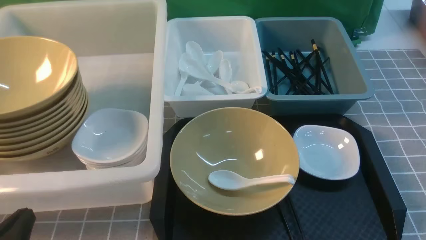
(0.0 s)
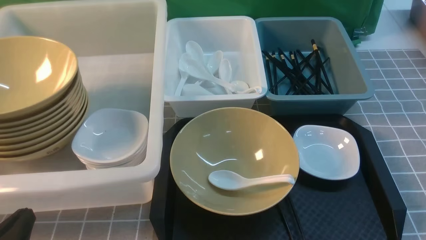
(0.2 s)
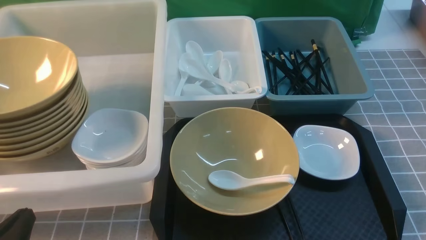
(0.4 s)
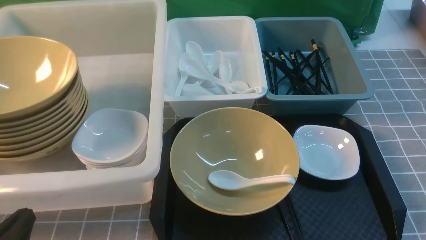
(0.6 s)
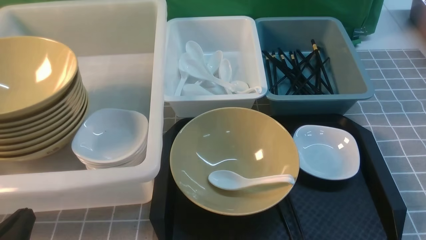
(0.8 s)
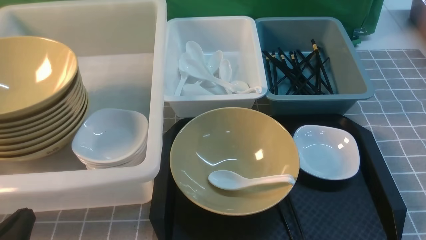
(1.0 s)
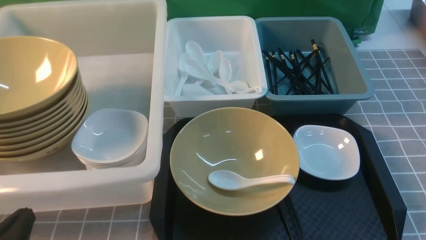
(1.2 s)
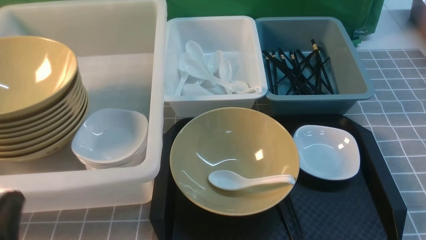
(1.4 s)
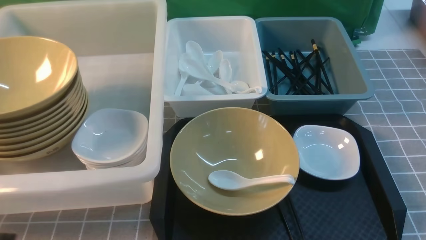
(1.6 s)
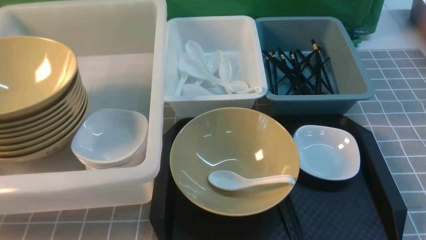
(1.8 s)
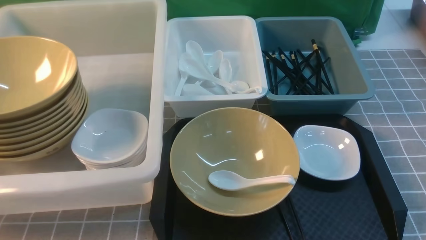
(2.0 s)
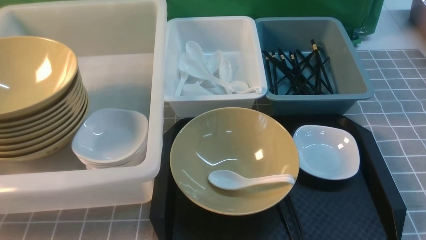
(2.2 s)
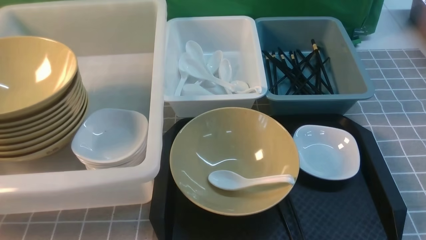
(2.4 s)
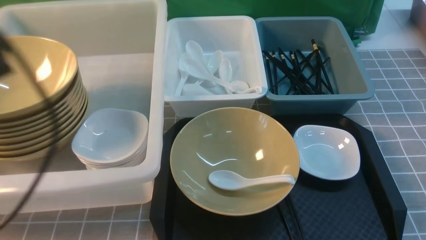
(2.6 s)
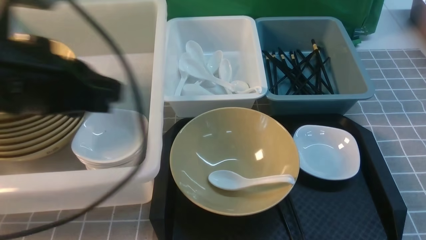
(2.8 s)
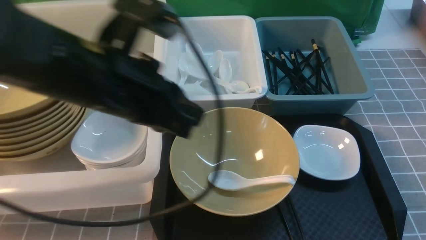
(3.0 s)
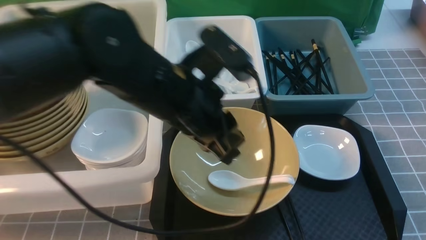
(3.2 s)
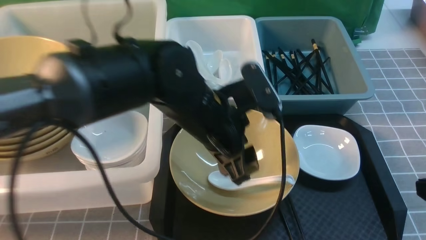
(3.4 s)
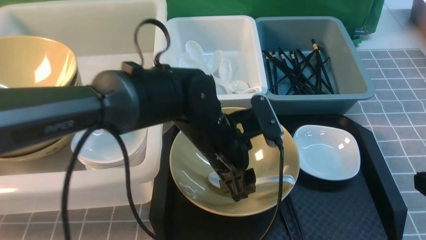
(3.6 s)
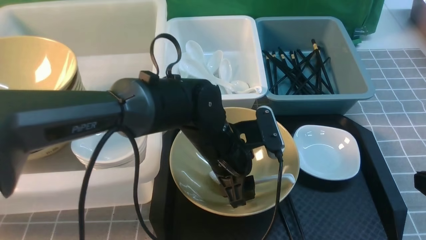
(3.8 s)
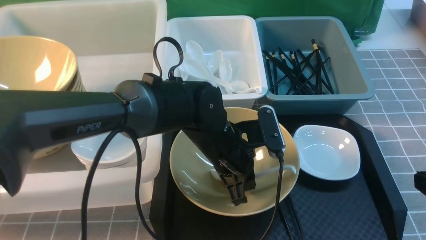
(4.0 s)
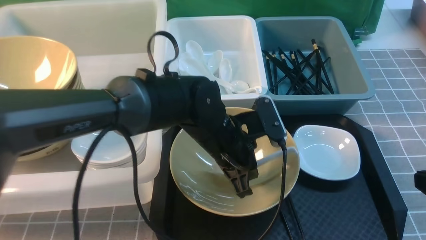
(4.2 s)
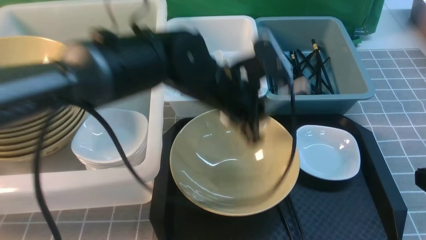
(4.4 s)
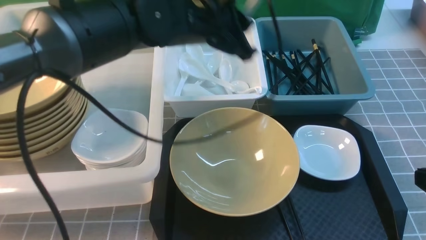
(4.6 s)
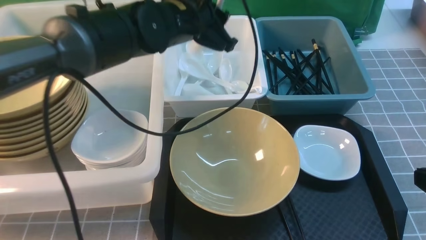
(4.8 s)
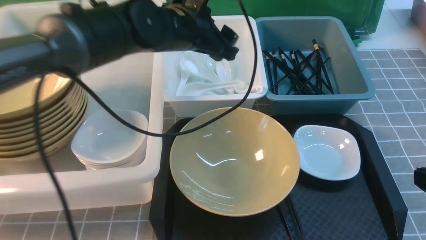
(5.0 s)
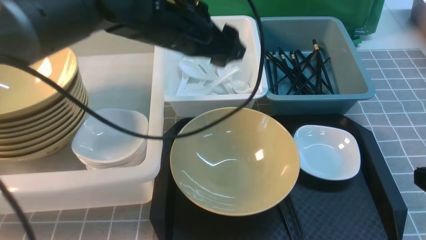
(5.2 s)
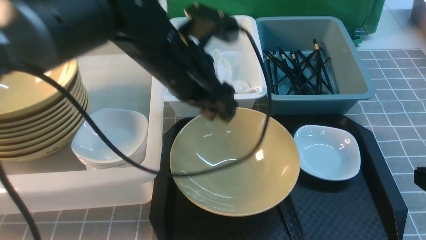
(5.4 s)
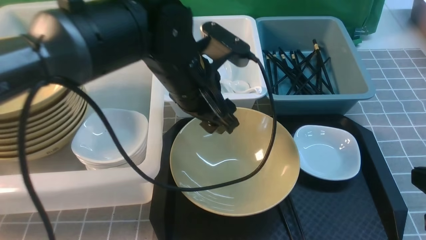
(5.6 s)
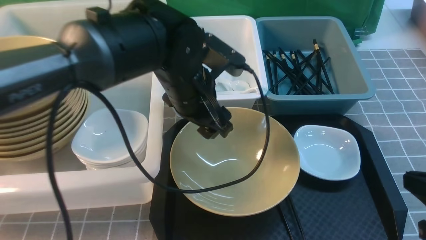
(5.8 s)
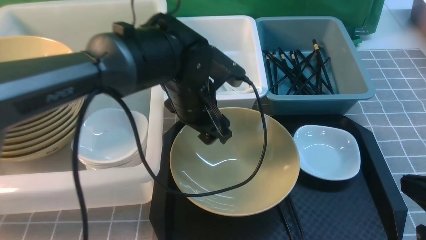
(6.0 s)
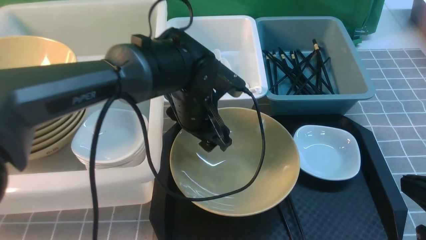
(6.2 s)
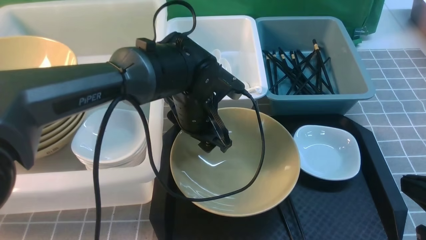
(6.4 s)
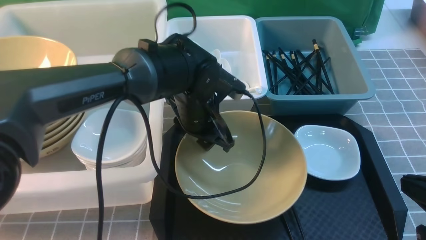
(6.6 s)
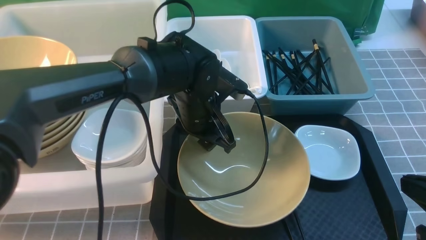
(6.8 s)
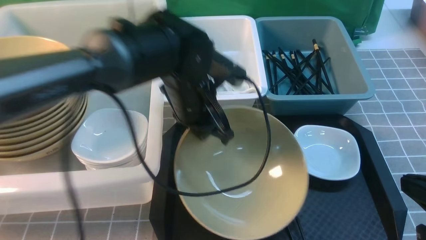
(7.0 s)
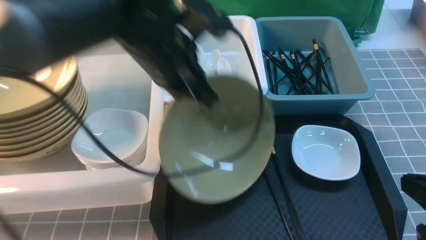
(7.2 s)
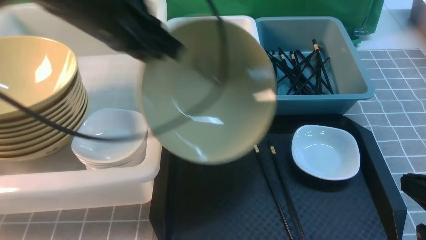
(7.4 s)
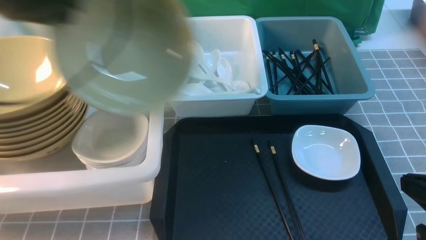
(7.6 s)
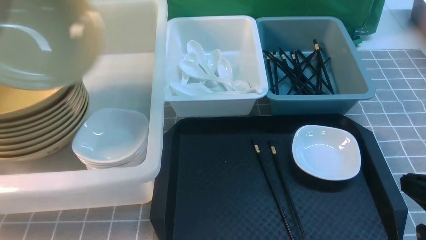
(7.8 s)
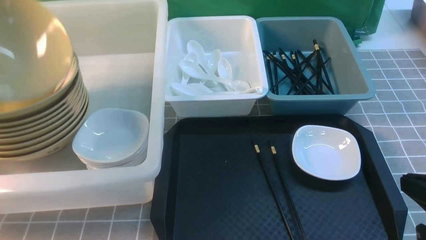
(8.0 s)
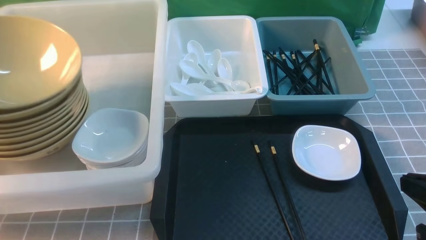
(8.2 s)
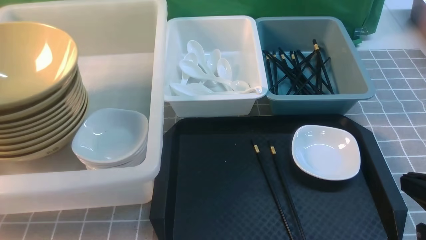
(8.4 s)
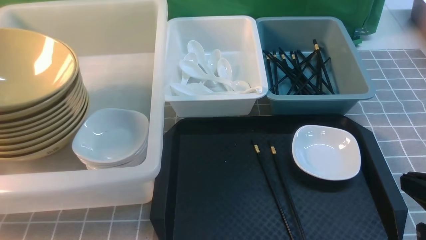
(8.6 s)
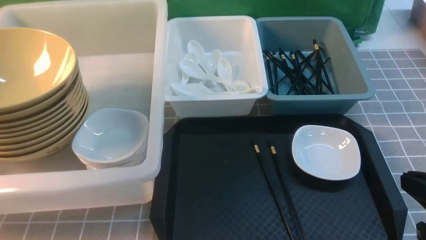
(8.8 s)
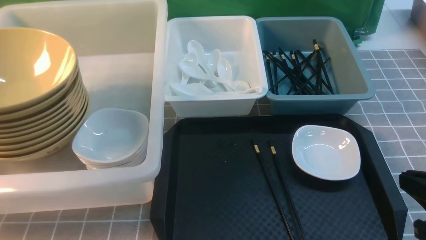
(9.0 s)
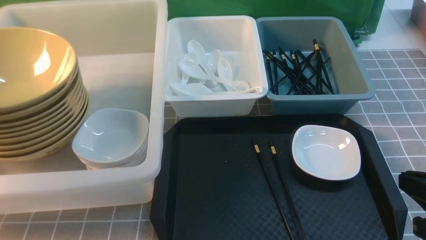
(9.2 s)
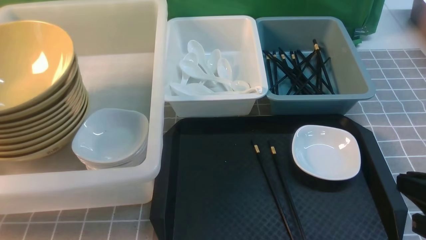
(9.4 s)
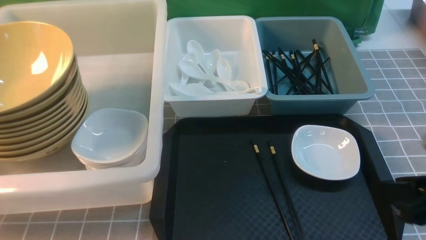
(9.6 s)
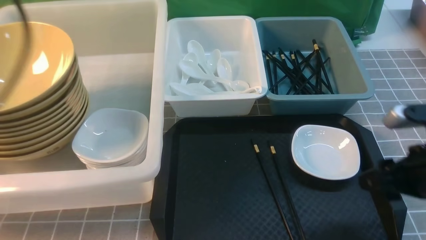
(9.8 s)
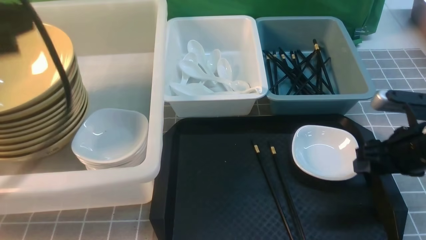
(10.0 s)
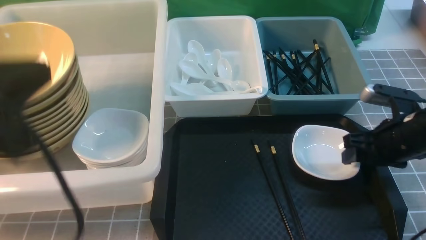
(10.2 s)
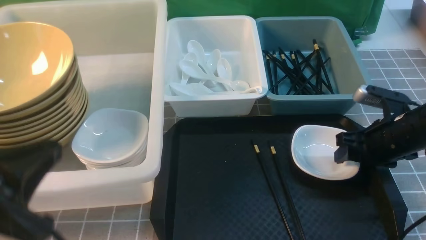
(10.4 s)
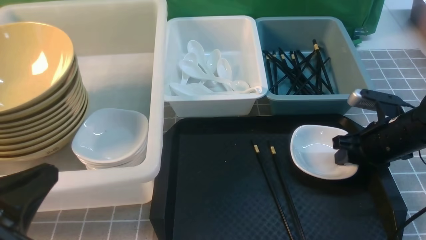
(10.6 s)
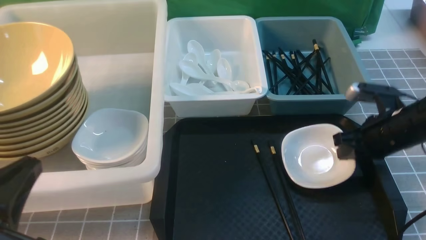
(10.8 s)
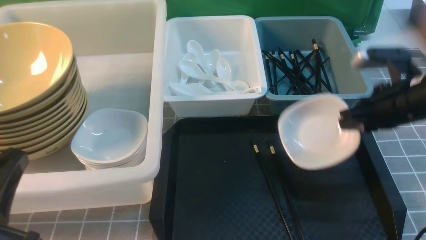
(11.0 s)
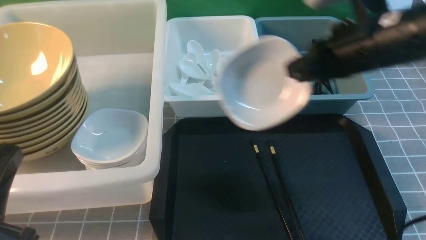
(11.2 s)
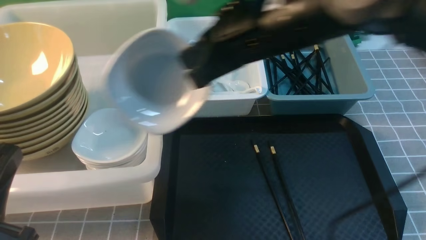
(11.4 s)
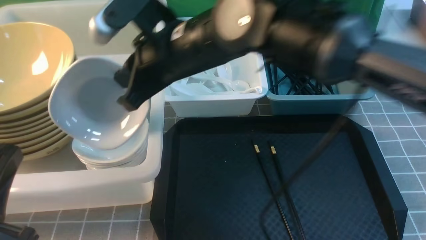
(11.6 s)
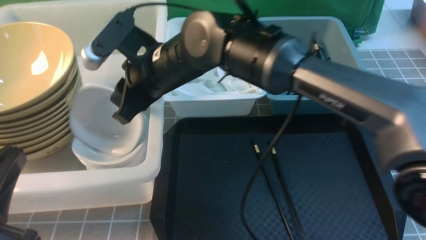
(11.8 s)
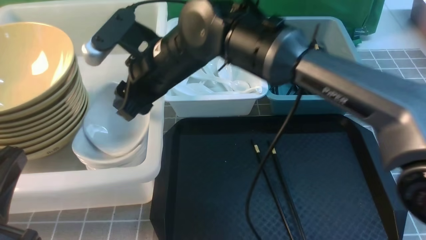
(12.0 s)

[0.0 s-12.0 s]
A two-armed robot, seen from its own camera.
Task of the whole recording: on grey table put chopsticks spoon bowls plates into blue grey white boxes.
Step, 0.0 to 4.4 s: use the left arm to grab the soup spoon in the middle.
Step, 4.6 to 5.0 s: use the left arm to put the soup spoon into the small storage box in the middle.
Step, 5.2 to 7.0 s: use the left arm to grab the yellow noodle bowl on the left.
Step, 7.2 to 9.0 s: use the left arm to put the noodle bowl into the large storage box on the left.
Step, 9.2 to 11.0 s: use the right arm to grab the plate.
0.0 to 1.6 s: The left gripper is displaced upward by some 5 cm.
1.6 to 3.0 s: The right gripper goes some 5 cm forward, reaches approximately 10 cm upward, then returns, and closes its fingers, while the left gripper shifts about 25 cm forward, to the right and upward.
3.0 to 4.4 s: The left gripper goes approximately 15 cm forward, to the right and downward, and opens, then closes again.
4.4 to 6.0 s: The left gripper opens.
6.0 to 7.6 s: The left gripper shifts some 30 cm to the left and upward, and closes its fingers.
7.6 to 9.0 s: The left gripper moves to the left, about 15 cm, and opens up.
9.0 to 10.4 s: The right gripper moves forward and downward, roughly 20 cm, and opens, while the left gripper travels backward and to the right by some 25 cm, and closes up.
10.4 to 12.0 s: The right gripper heads to the left and upward, covering some 35 cm, and closes, then opens again. The left gripper moves roughly 5 cm.

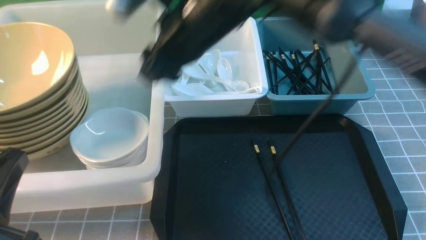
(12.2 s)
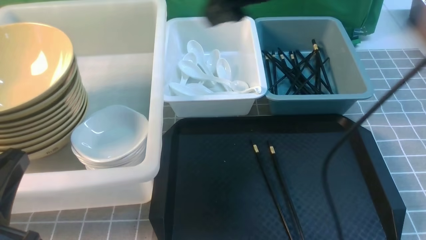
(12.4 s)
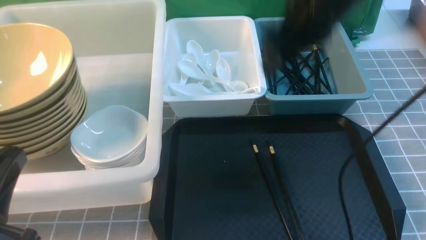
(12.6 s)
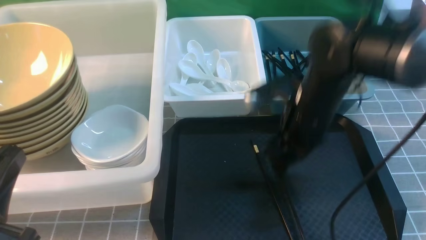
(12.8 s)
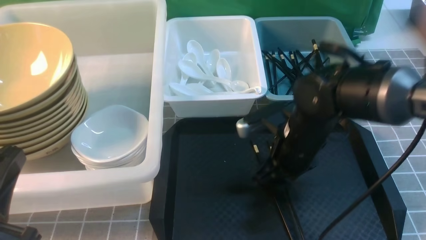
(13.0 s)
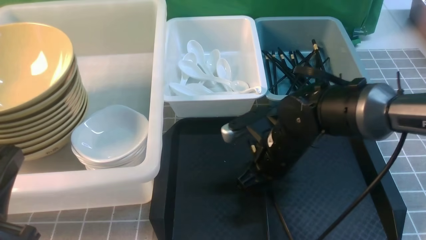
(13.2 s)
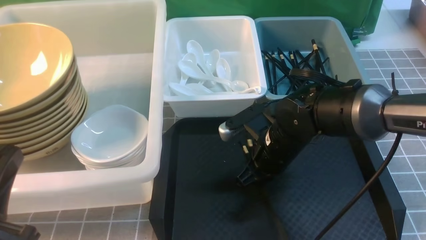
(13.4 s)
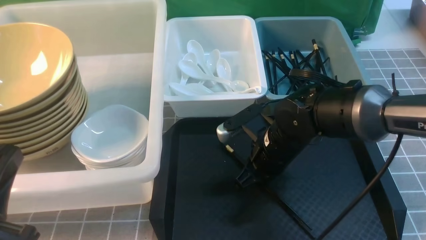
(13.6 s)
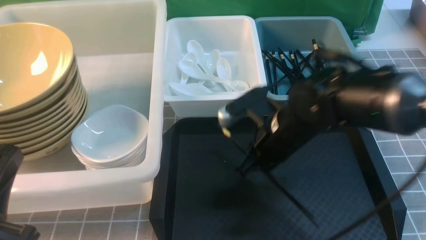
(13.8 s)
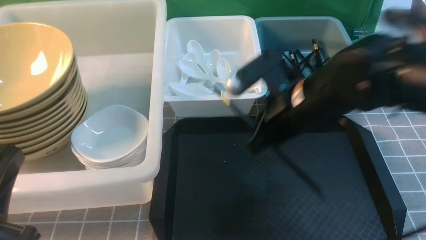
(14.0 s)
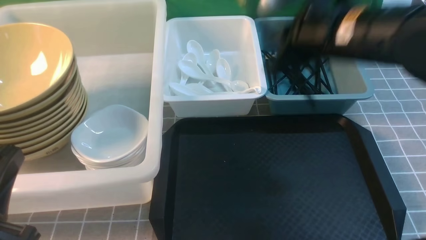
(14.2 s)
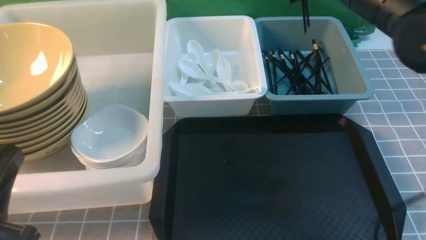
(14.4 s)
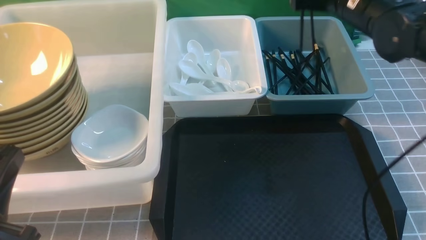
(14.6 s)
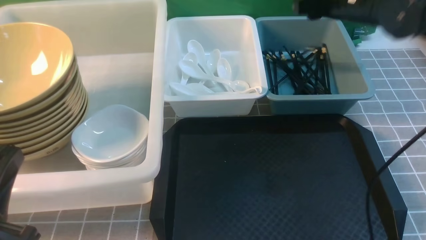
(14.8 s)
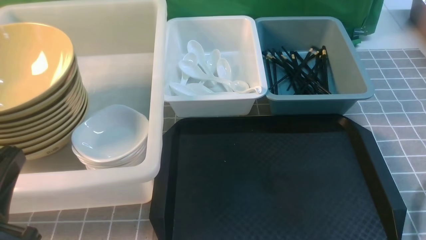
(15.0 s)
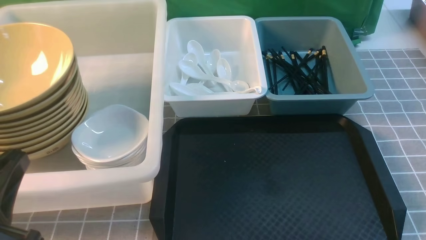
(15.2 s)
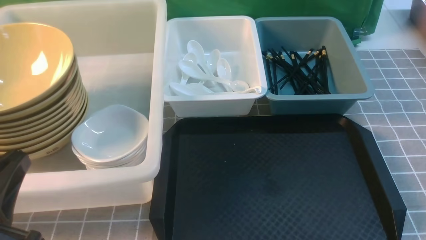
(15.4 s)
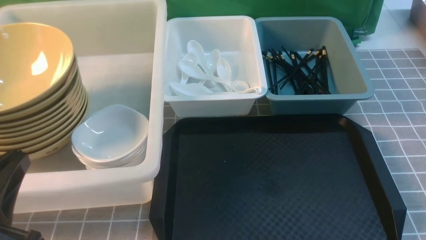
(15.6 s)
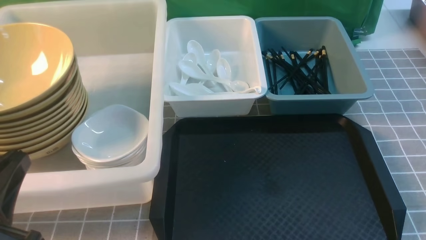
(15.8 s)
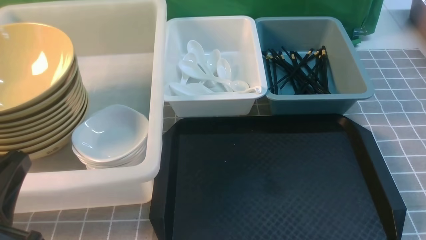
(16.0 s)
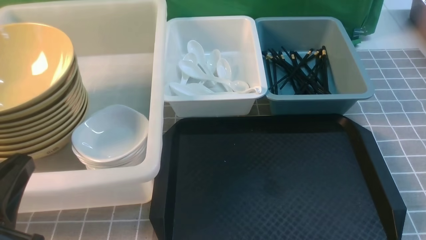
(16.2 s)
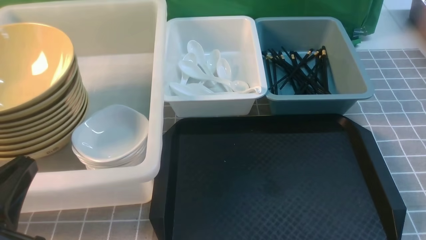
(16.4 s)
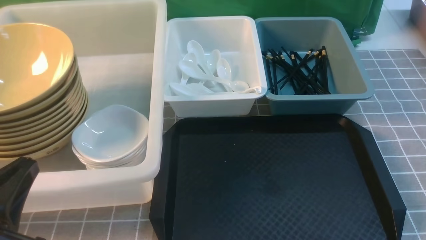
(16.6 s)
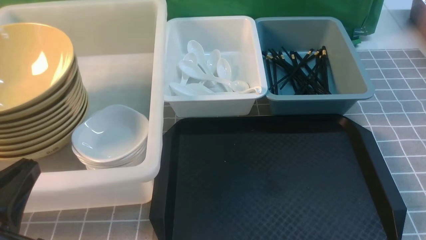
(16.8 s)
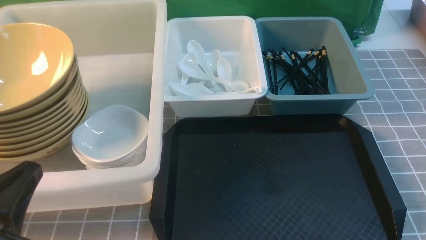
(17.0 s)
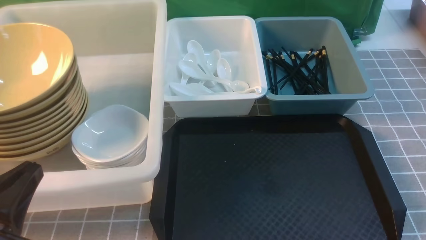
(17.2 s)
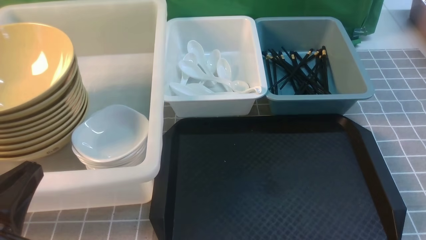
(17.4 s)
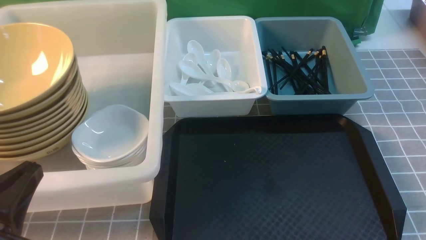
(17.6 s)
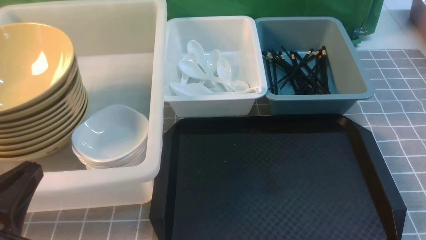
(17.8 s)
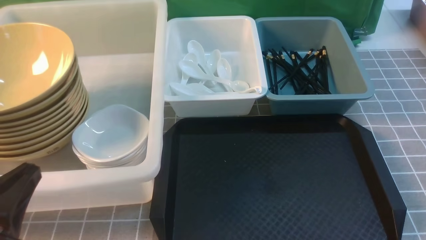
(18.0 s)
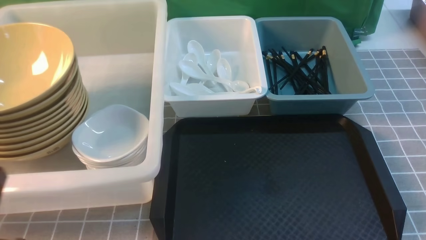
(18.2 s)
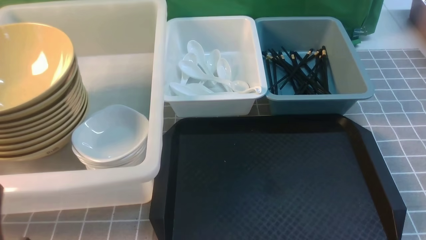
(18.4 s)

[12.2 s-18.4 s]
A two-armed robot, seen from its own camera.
Task of the whole recording: on grey table put chopsticks spoon bowls plates into blue grey white boxes.
Step, 14.0 to 14.8 s: use the left arm to put the chopsticks into the small storage box on the right.
12.2 to 13.8 s: The right gripper shifts some 15 cm downward, to the right and backward, and closes its fingers.
13.8 to 15.4 s: The right gripper shifts approximately 30 cm to the right, backward and upward, and opens and closes again.
16.8 to 18.4 s: The left gripper shifts some 5 cm downward.
